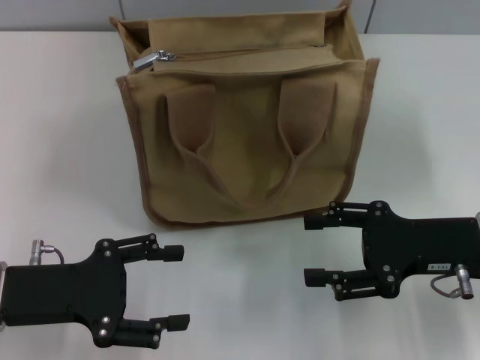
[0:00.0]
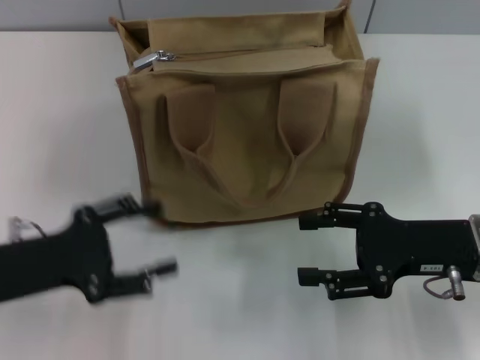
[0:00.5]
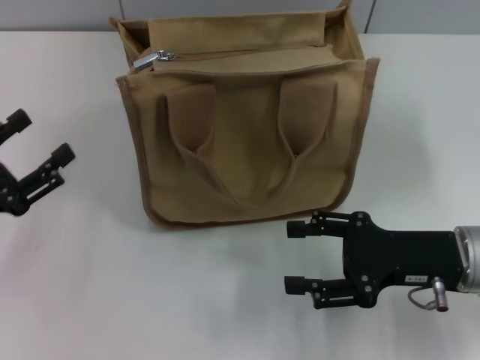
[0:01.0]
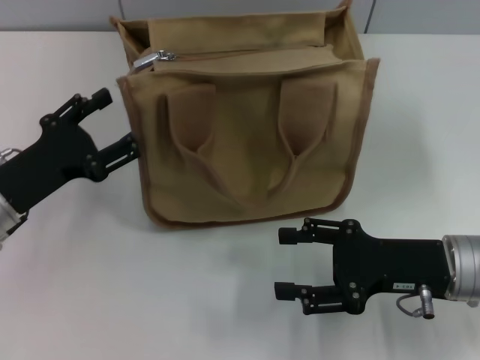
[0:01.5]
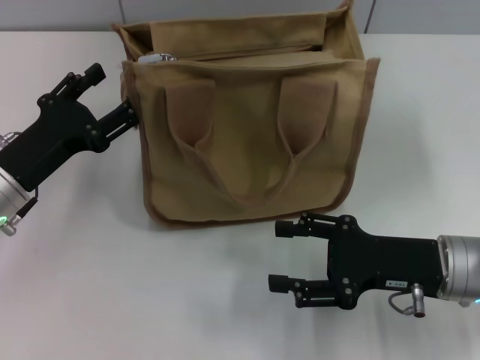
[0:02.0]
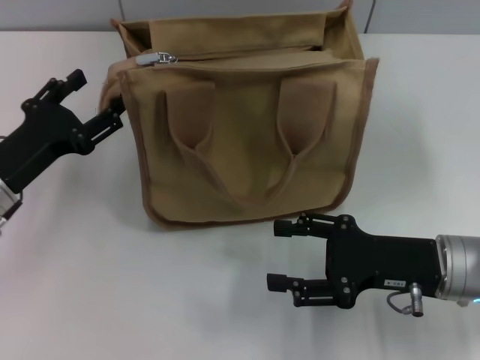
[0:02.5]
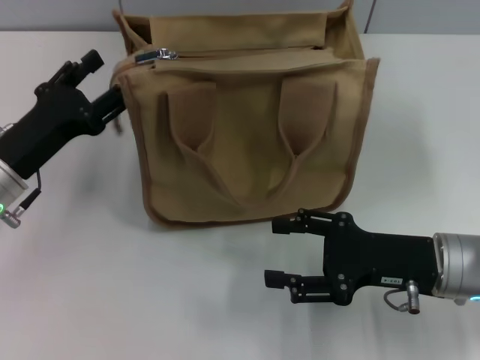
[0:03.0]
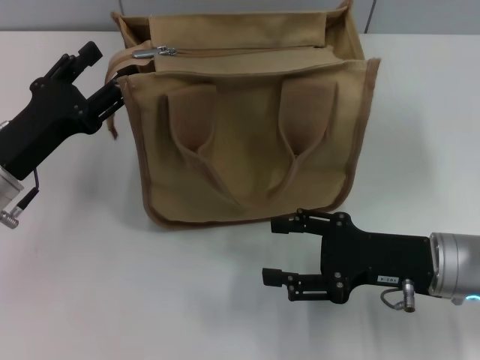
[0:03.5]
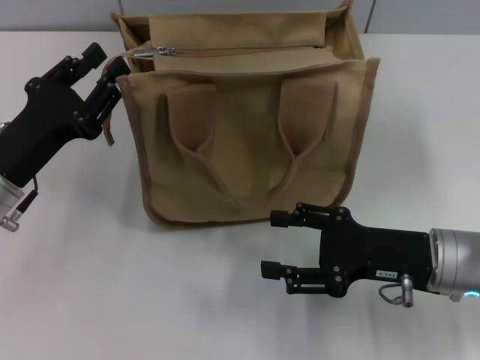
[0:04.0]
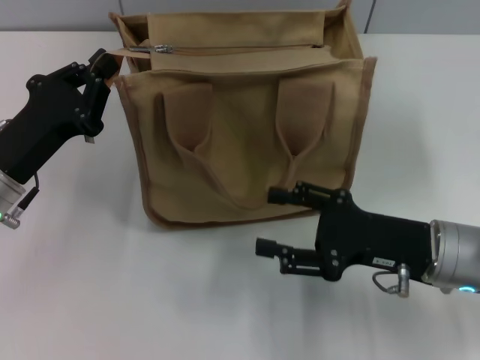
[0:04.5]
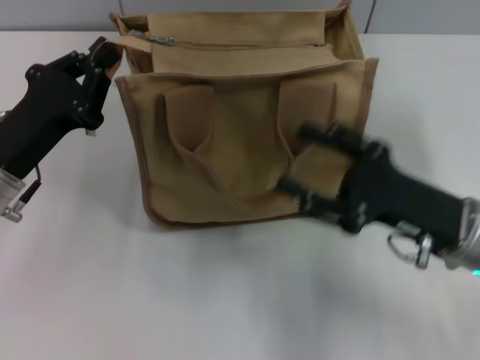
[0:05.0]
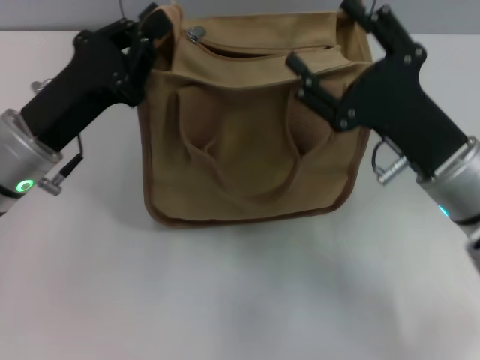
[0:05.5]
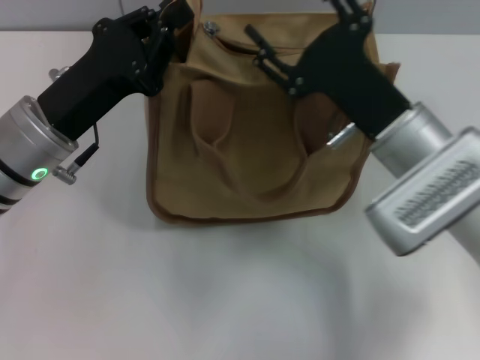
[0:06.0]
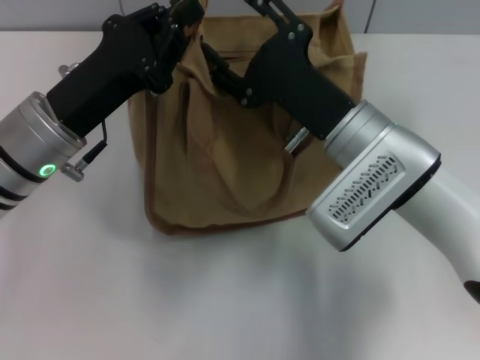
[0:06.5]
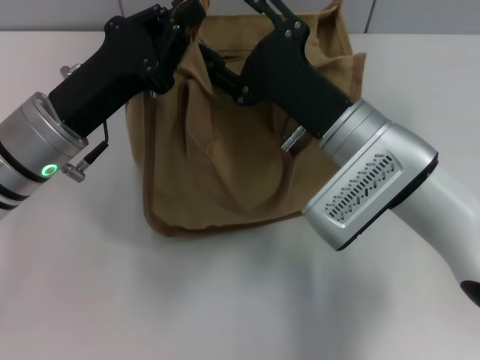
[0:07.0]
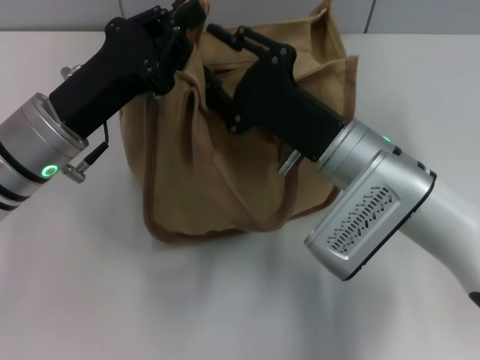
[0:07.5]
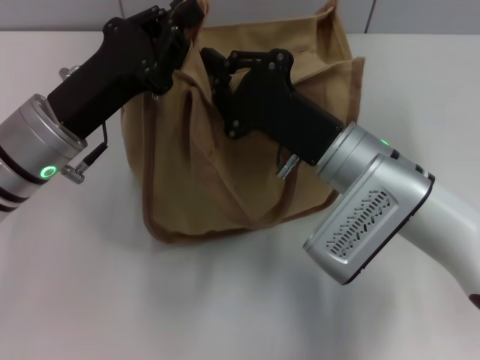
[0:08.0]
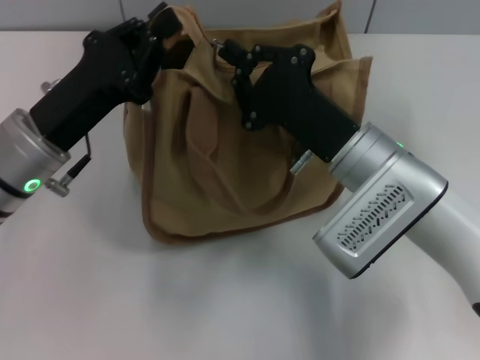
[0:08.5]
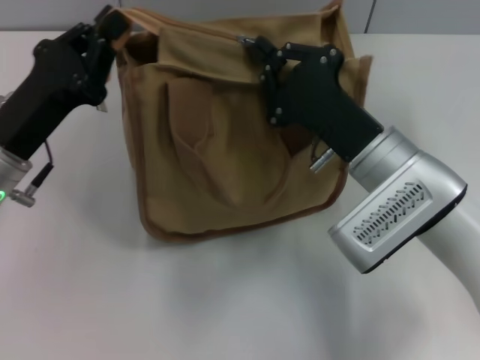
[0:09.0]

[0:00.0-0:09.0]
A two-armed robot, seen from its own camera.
0:00.0 to 0:02.0: The left gripper heads forward, covering some 5 cm.
0:02.0 to 0:04.5: The left gripper closes its fingers.
0:04.5 to 0:07.0: The right gripper travels to the left and forward by roughly 10 cm, while the left gripper travels to the right by about 5 cm.
0:07.0 to 0:09.0: The right gripper closes its fingers. The left gripper shifts by approximately 5 cm.

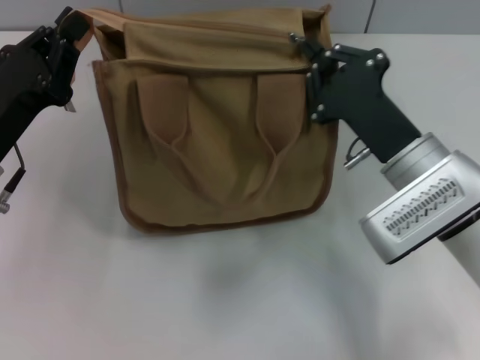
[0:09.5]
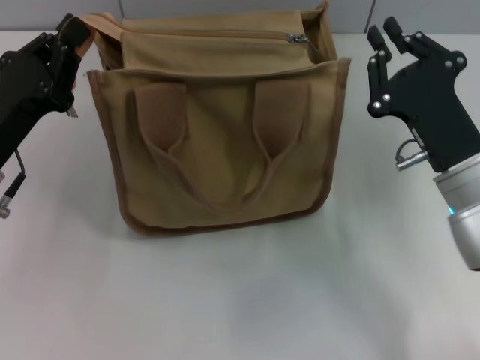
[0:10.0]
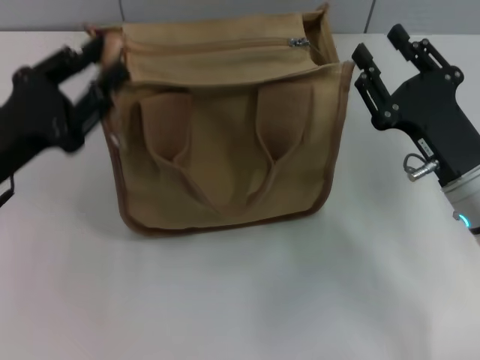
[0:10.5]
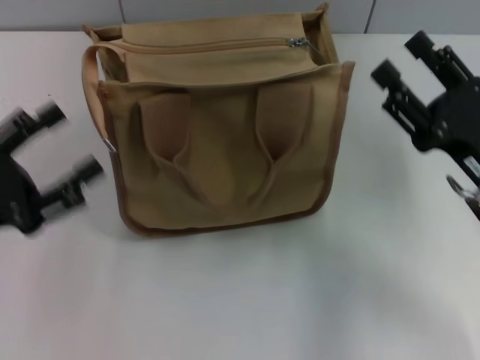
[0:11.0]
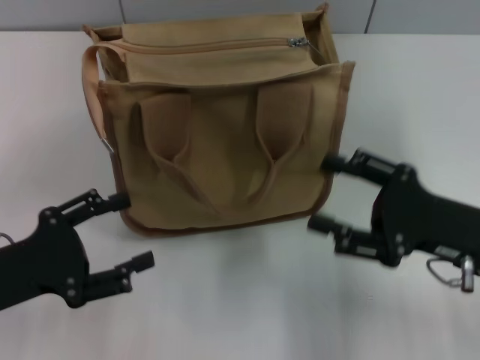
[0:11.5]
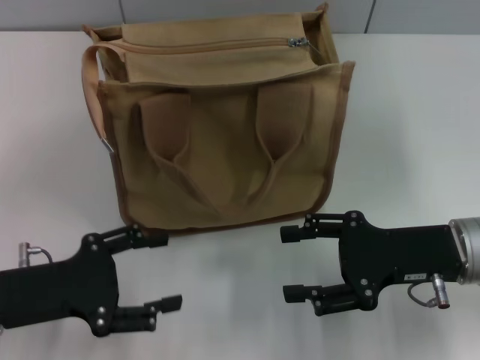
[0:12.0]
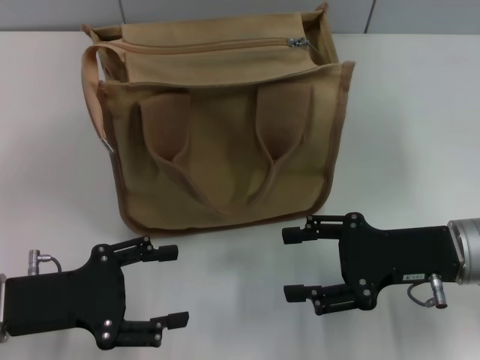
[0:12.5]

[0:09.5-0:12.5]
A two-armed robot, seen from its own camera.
Step, 0:10.0 to 0:10.5: Grab the zipper with your left hand.
0:09.5 to 0:11.0: The left gripper goes approximately 5 cm backward, and opens its fingers. Meanwhile the right gripper is displaced to the right by roughly 10 cm, and opens.
0:11.0 to 0:12.5: The left gripper changes place by about 5 cm.

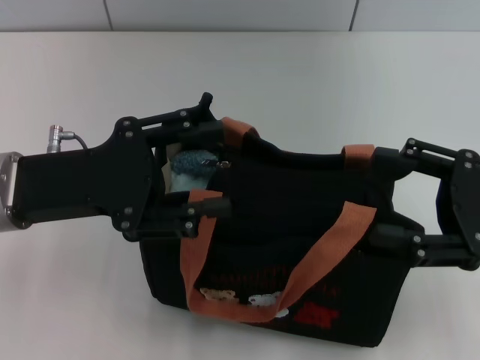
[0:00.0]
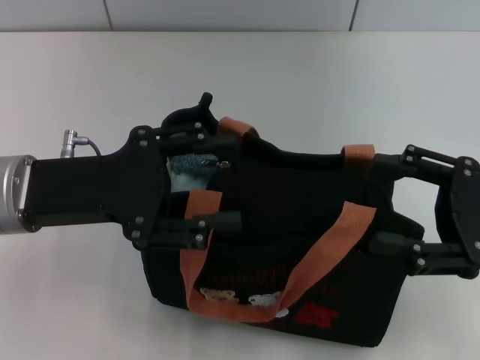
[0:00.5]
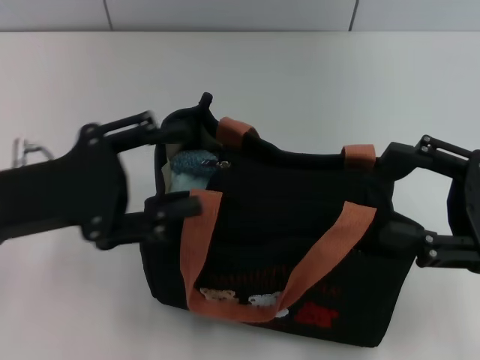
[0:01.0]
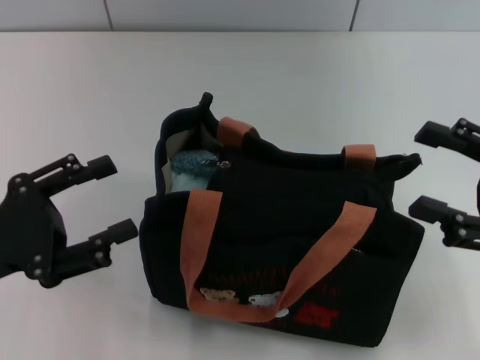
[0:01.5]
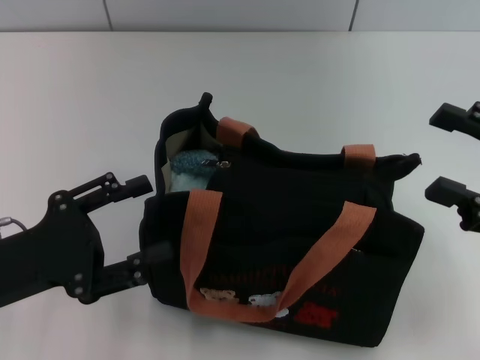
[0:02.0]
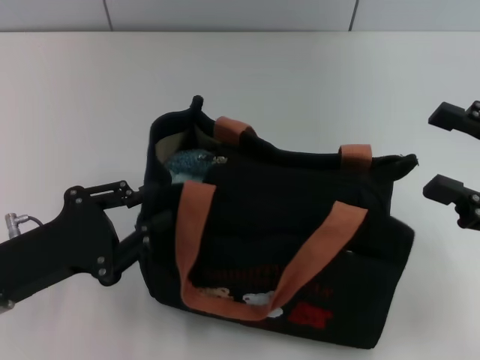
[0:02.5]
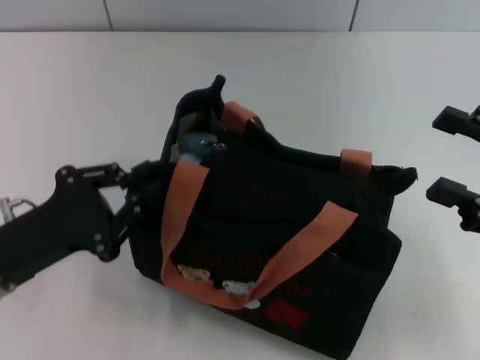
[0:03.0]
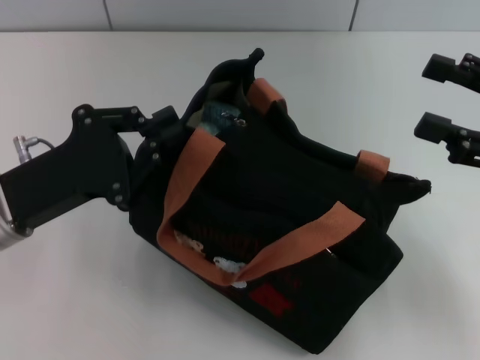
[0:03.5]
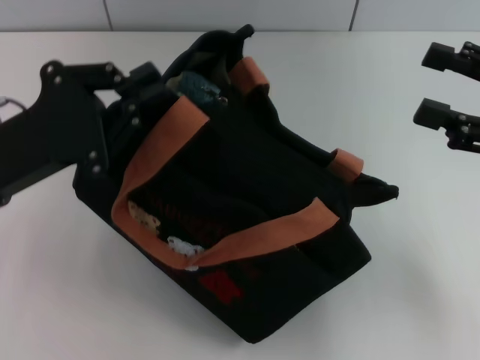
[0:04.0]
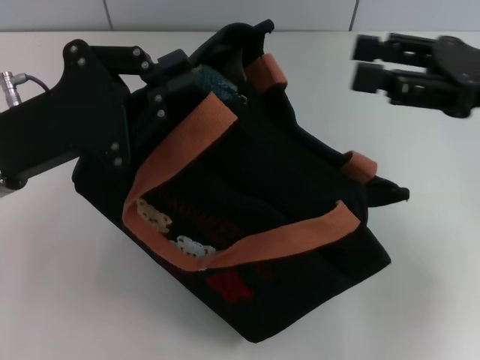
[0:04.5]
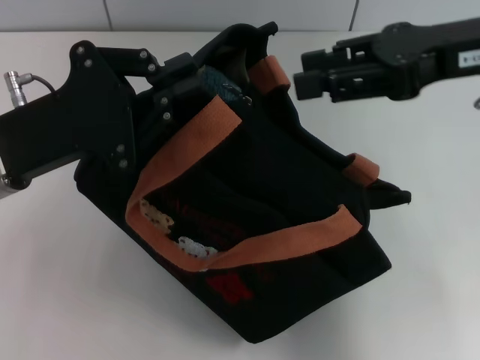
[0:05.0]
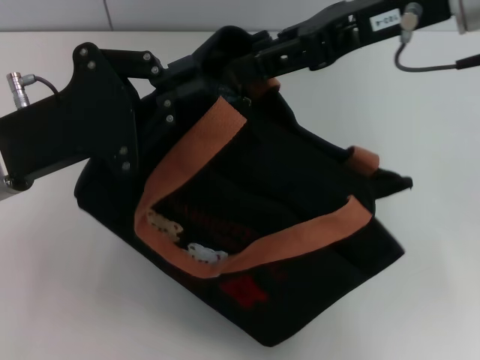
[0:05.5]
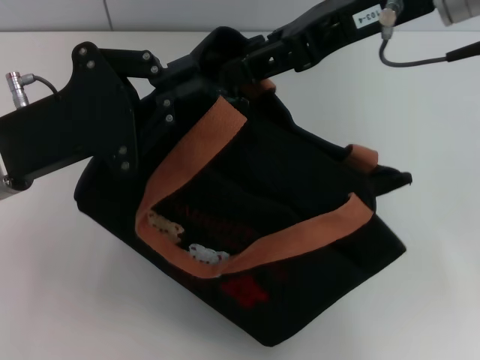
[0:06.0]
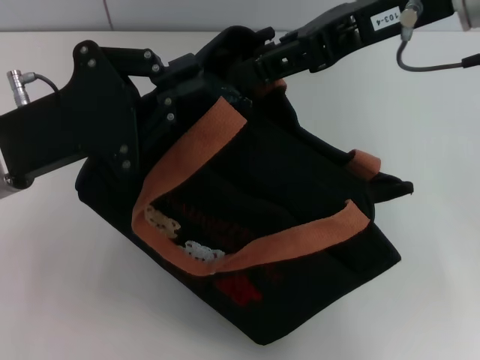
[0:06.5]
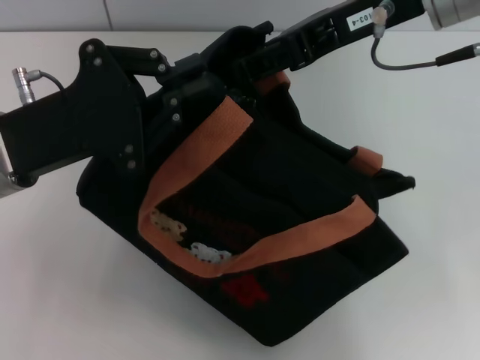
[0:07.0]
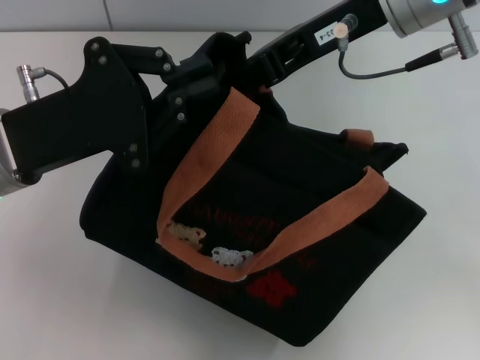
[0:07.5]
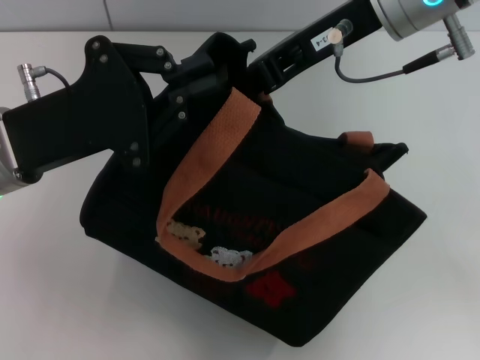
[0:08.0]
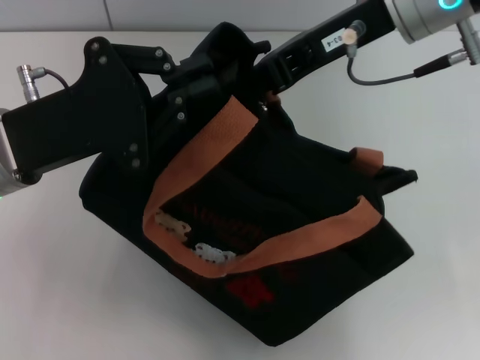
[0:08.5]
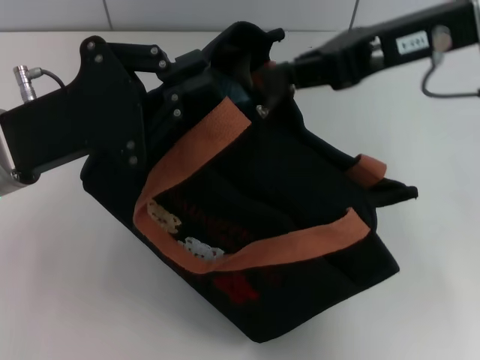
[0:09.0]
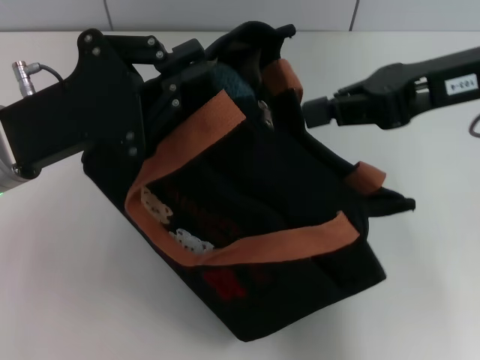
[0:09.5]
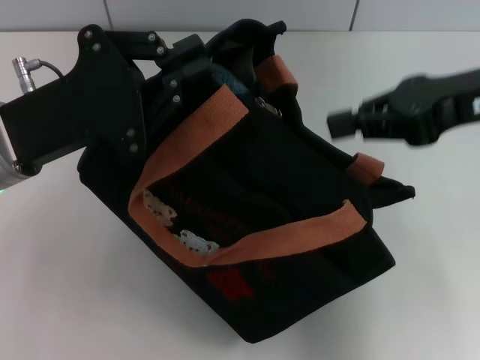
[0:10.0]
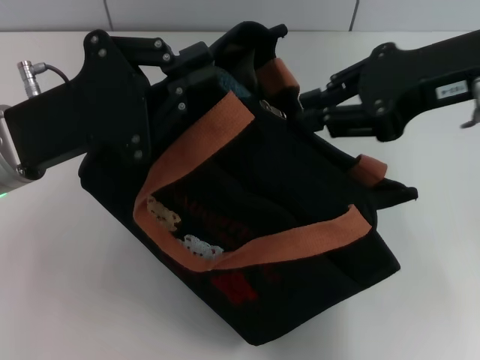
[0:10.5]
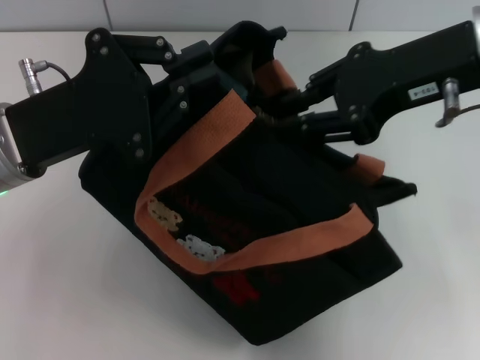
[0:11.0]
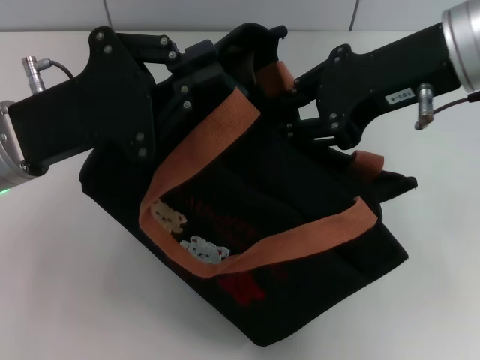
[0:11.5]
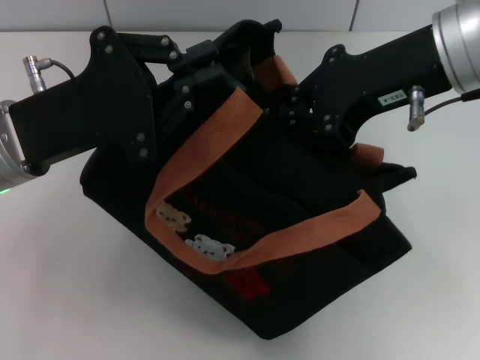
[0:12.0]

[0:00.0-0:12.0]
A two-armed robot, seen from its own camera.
0:00.0 to 0:02.0: The left gripper moves backward, roughly 5 cm.
0:02.0 to 0:04.0: The right gripper moves some 5 cm. Meanwhile the left gripper shifts some 5 cm forward, and closes.
0:04.0 to 0:06.0: The right gripper moves to the left, upward and forward, some 20 cm, and closes its fingers.
0:06.0 to 0:08.0: The grippers stay close to where they were, moving slightly.
0:08.0 to 0:10.0: The right gripper heads to the right and backward, covering about 15 cm, and closes.
0:10.0 to 0:12.0: The right gripper goes about 5 cm to the left.

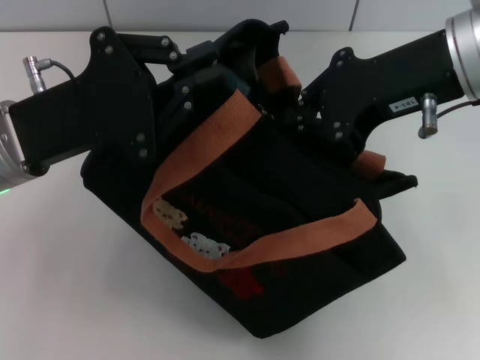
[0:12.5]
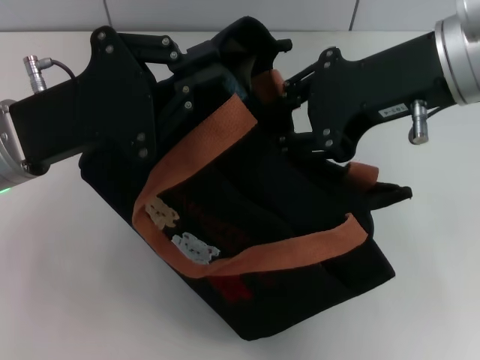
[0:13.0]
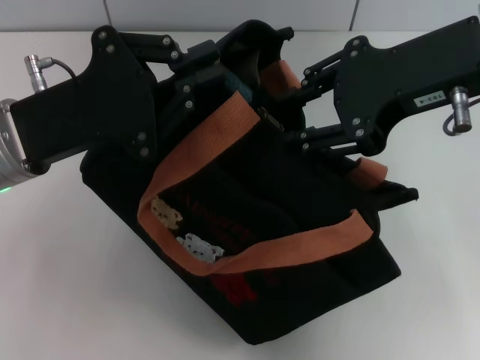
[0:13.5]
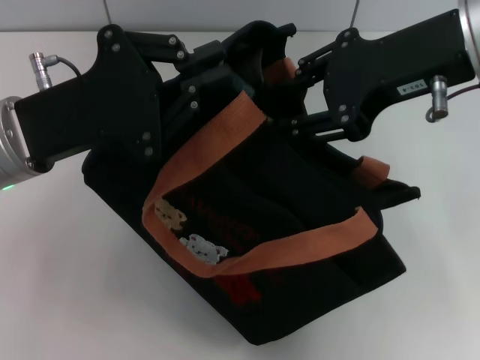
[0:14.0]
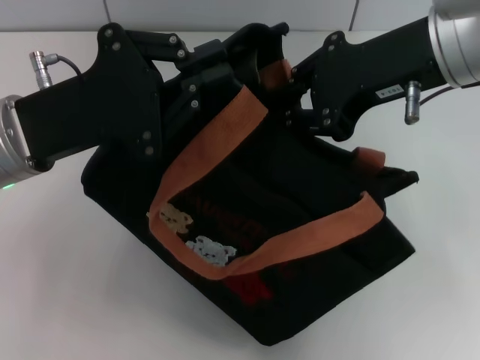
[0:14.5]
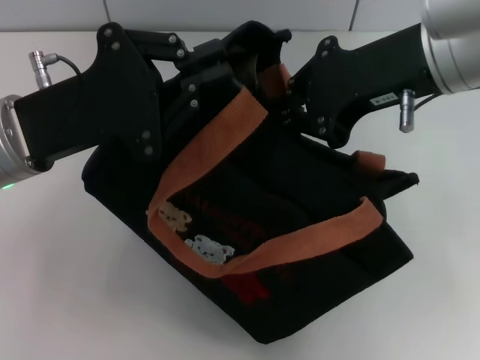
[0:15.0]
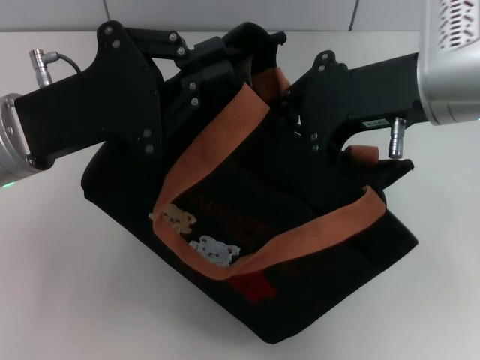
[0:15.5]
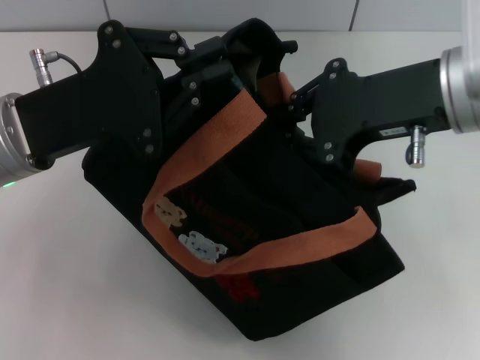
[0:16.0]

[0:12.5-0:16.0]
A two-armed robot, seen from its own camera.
0:12.5 to 0:16.0: The grippers make only small movements.
